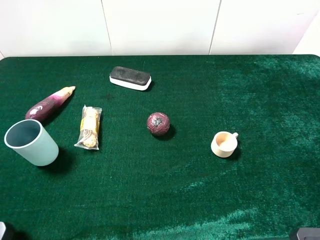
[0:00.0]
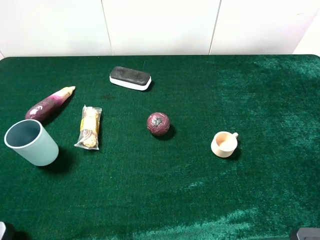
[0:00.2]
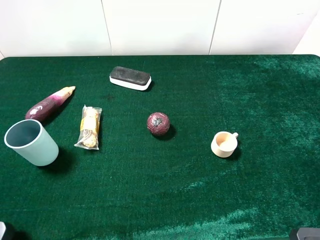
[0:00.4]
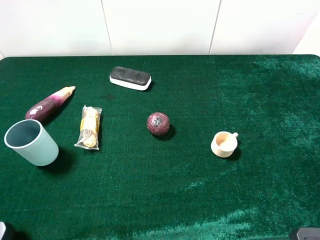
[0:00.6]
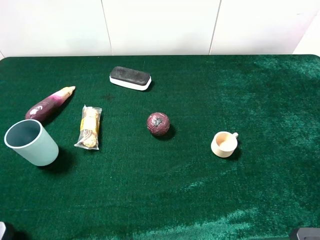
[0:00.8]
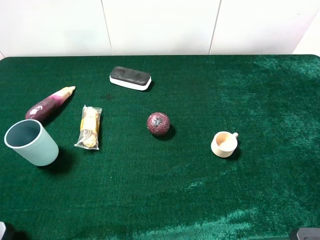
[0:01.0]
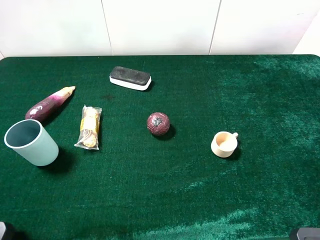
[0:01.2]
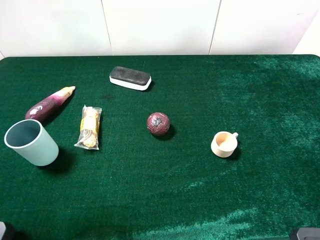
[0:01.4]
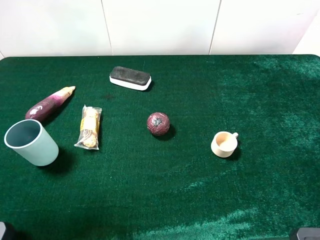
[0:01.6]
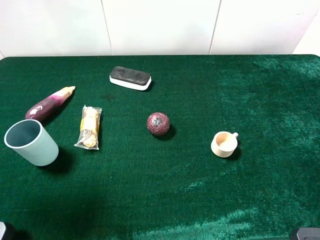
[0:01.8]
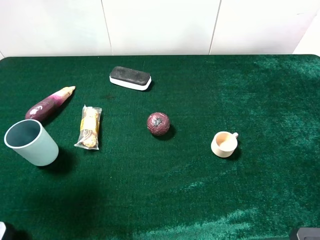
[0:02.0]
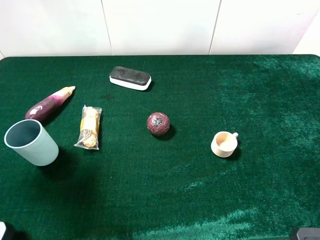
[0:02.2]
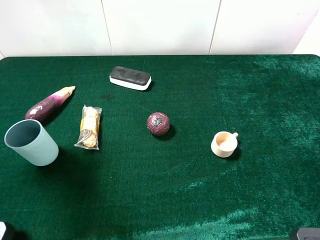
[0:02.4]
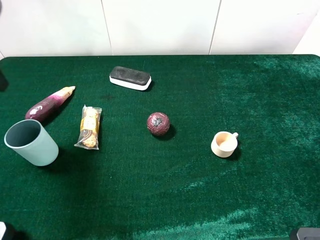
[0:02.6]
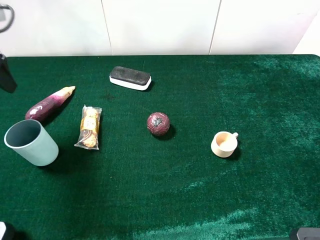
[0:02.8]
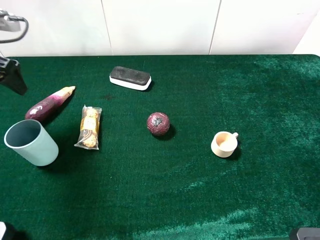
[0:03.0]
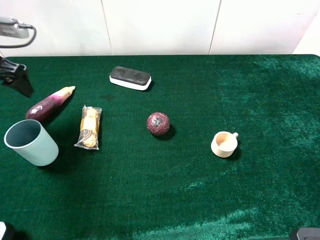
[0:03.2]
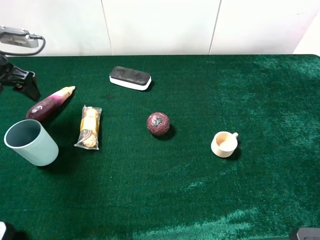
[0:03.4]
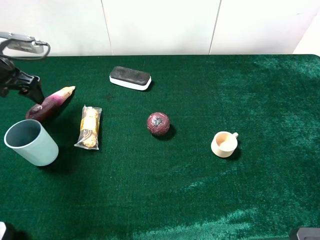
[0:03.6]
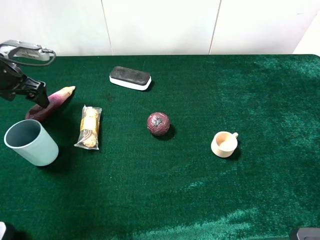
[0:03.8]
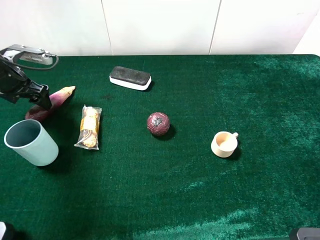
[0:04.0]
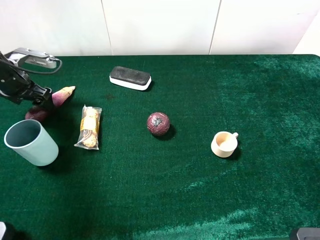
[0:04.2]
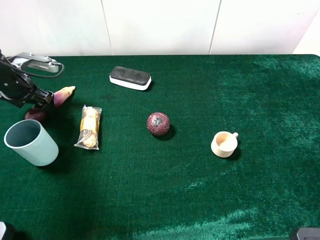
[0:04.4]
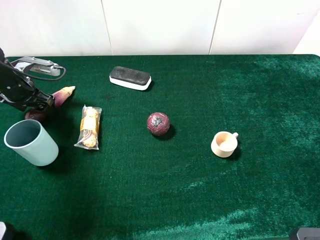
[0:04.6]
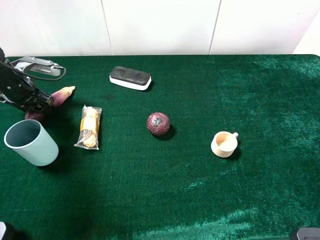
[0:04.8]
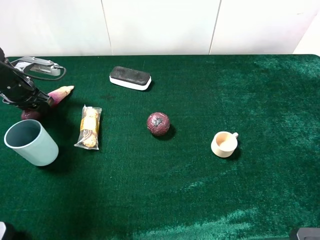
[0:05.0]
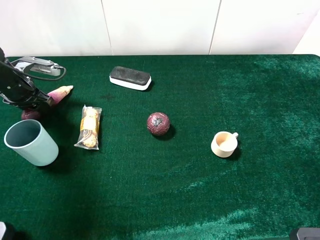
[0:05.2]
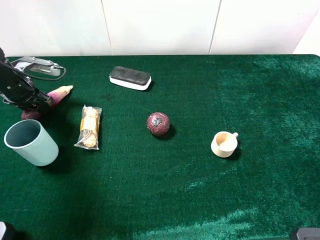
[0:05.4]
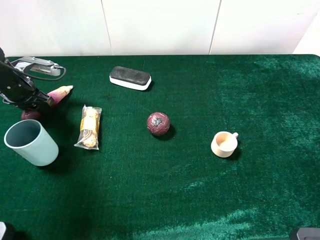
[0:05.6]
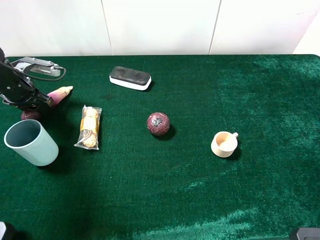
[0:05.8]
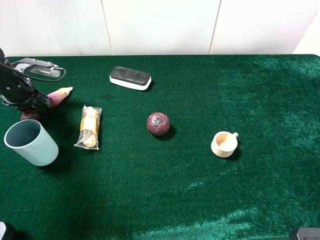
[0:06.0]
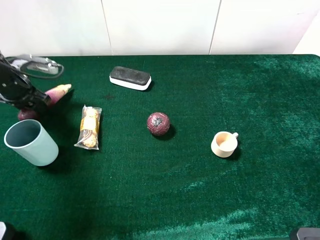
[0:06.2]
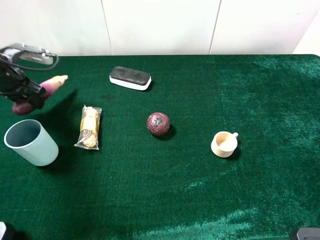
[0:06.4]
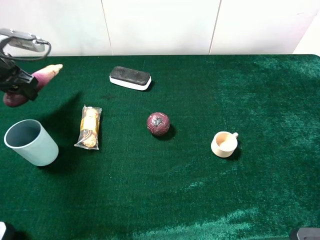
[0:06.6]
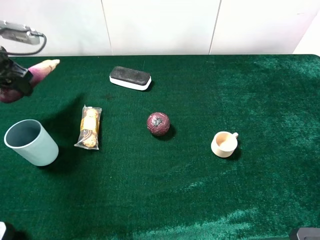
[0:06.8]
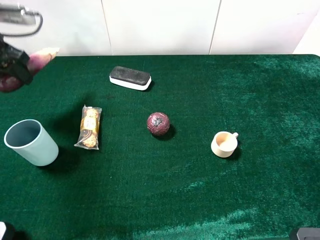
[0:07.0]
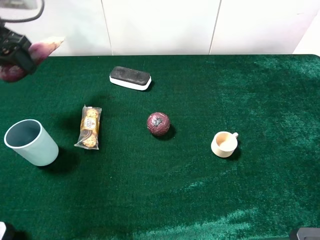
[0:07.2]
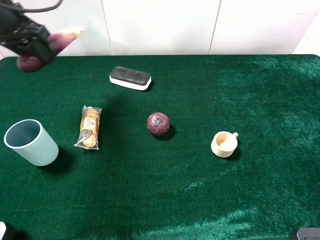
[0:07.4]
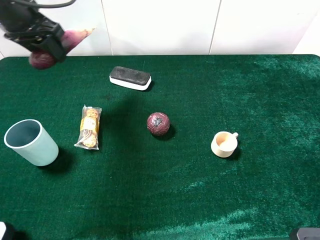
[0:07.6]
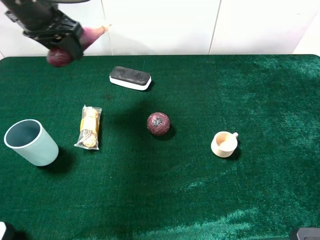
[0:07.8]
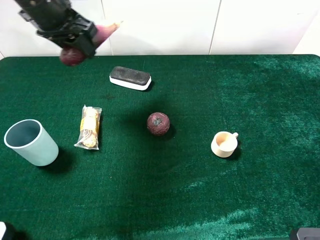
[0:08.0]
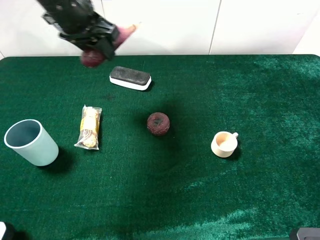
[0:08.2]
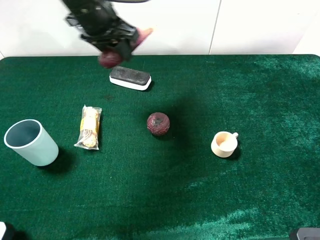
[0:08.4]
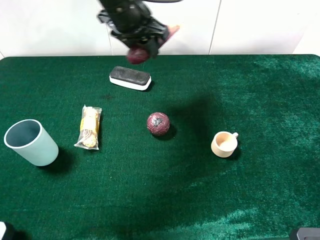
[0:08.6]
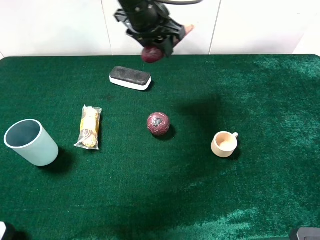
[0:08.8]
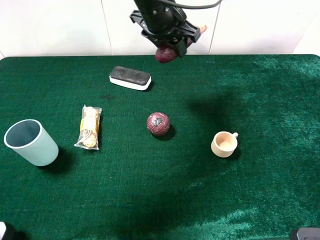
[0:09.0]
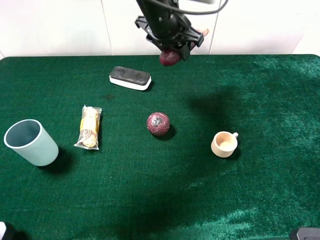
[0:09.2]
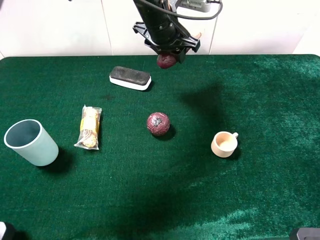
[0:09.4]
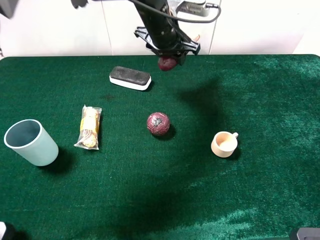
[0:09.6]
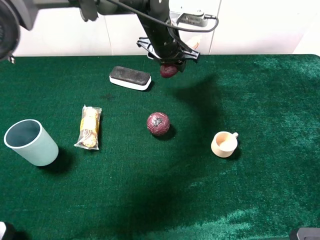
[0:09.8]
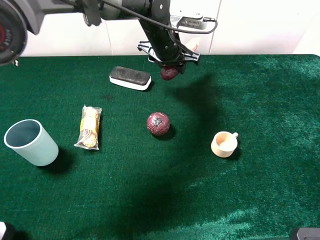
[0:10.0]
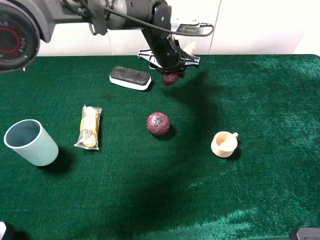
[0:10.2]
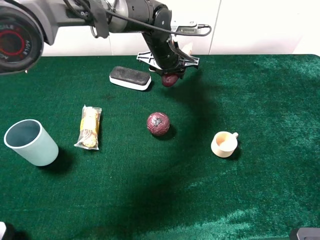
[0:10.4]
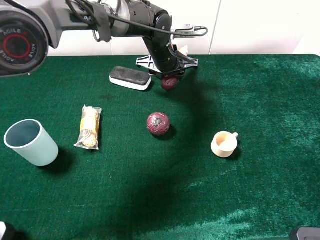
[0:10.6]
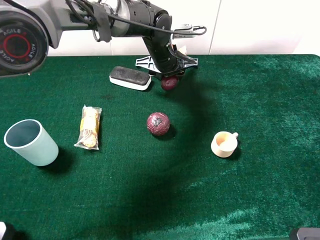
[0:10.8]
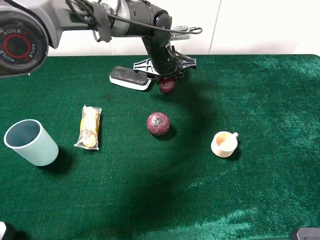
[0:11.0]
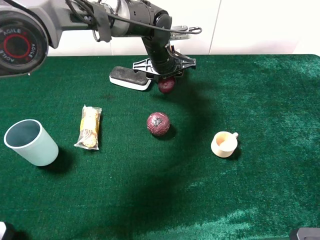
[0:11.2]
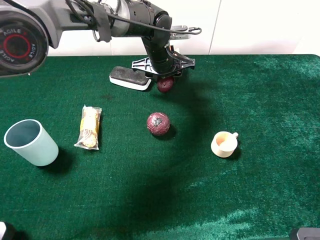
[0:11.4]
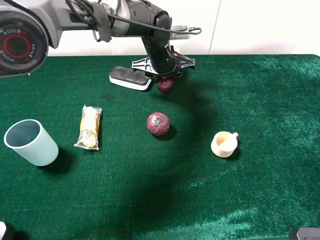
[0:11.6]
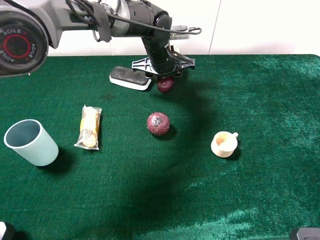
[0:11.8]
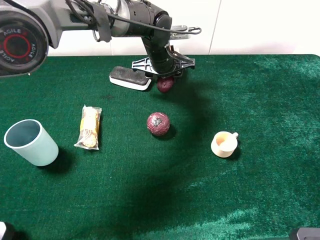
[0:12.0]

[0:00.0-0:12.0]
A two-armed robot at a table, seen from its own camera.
Task of the whole recording: the gripper move the object.
Step, 0.0 to 5.6 s: Grasp the eggplant with the left gripper.
0.0 to 1.6 s: The left gripper heads forward and upward, covering roughly 10 cm.
1.6 to 3.0 s: The left gripper heads forward and downward, covering approximately 20 cm.
3.0 to 4.4 s: The left gripper goes about 15 cm downward and forward.
4.4 to 6.0 s: The left gripper closes its fingers.
6.0 to 7.6 s: The left gripper heads upward and to the right, covering about 20 cm.
7.6 to 9.0 s: The left gripper is displaced to the right by approximately 25 cm.
9.0 to 10.4 s: The left gripper moves downward, approximately 10 cm.
10.4 to 12.0 s: There are only small adjustments of the grippers.

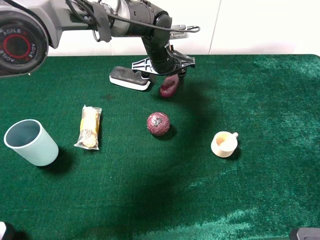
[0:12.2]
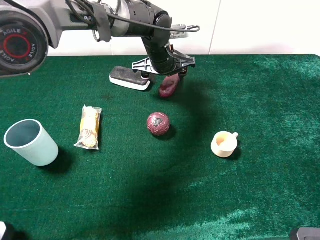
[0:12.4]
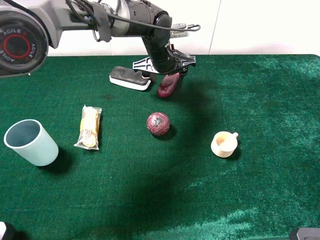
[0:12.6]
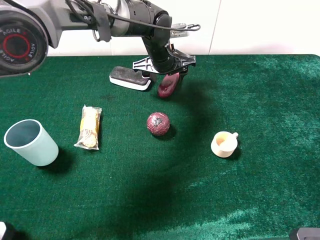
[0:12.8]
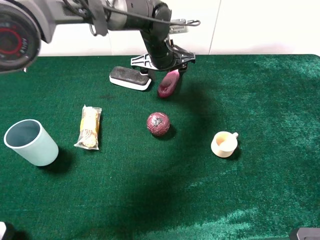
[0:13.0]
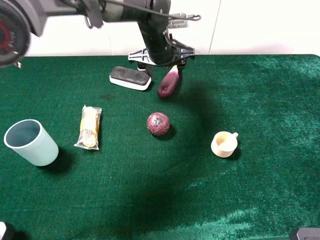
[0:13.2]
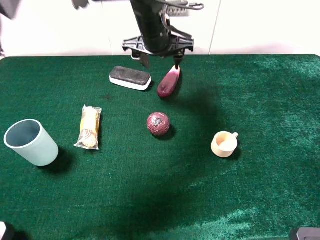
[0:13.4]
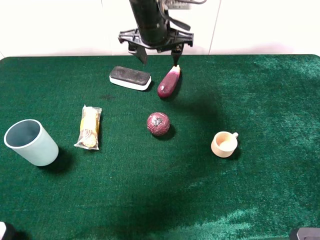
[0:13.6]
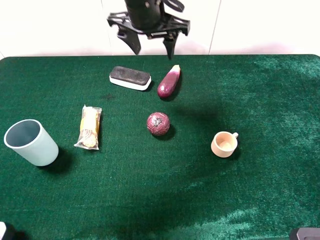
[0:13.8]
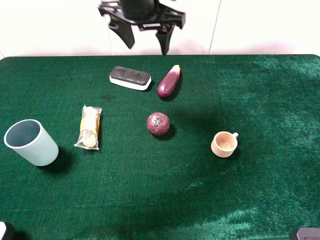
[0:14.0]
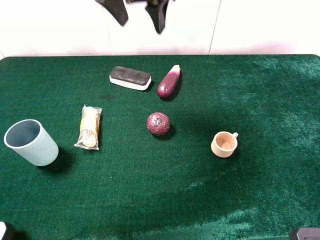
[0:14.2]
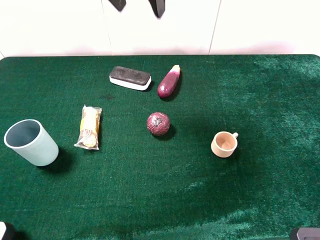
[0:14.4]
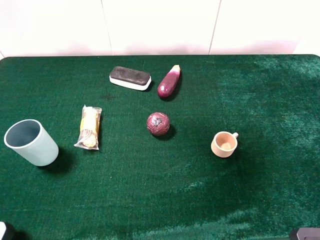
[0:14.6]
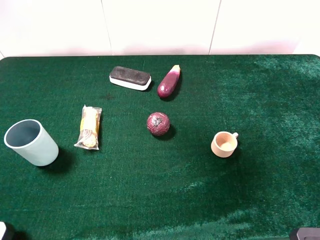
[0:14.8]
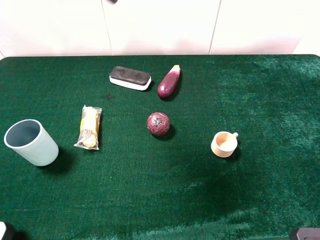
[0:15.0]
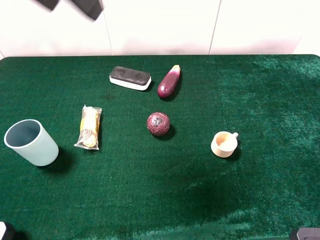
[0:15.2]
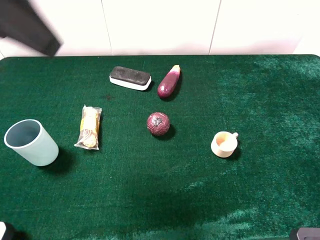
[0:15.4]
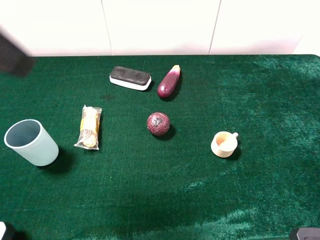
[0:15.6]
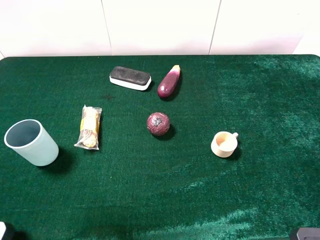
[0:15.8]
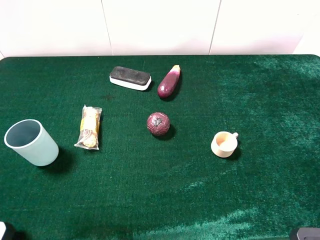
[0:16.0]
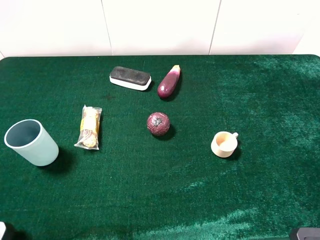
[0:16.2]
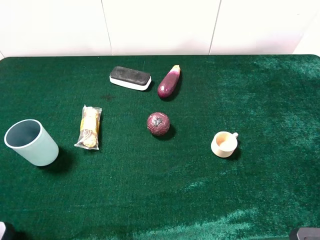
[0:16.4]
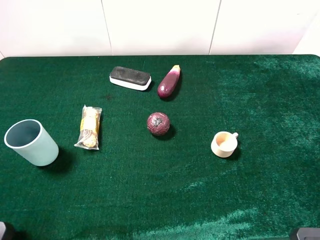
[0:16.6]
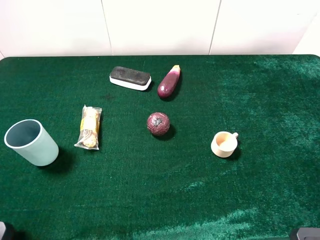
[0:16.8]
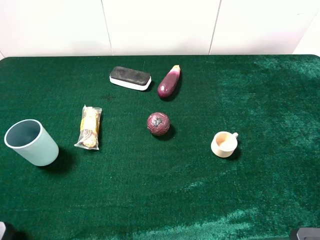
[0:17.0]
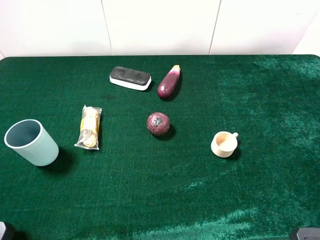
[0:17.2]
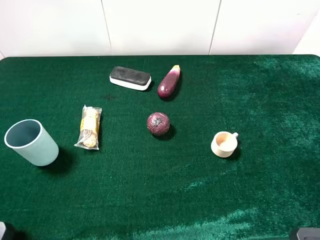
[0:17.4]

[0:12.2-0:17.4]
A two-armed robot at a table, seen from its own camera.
Task of the whole recording: the gripper move the object.
12.2 to 14.0 s: The left gripper goes about 15 cm upward.
14.0 to 15.6 s: The left gripper heads backward and to the left, covering some 30 cm, and opens.
15.6 to 17.4 s: The left gripper heads backward, downward and to the left, covering approximately 20 cm.

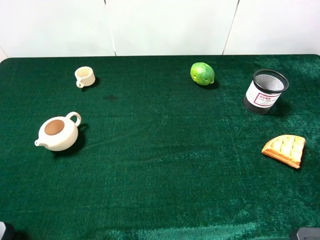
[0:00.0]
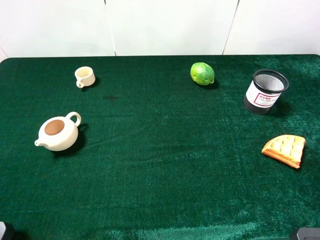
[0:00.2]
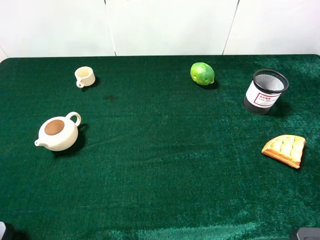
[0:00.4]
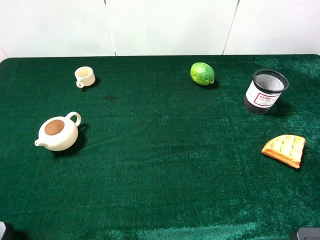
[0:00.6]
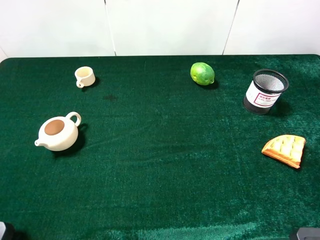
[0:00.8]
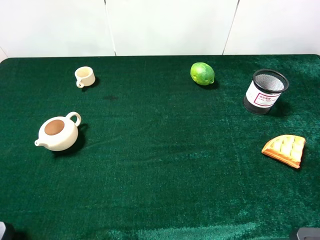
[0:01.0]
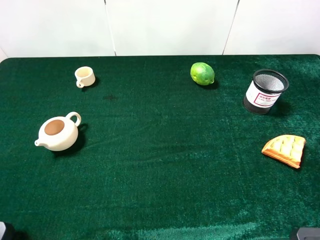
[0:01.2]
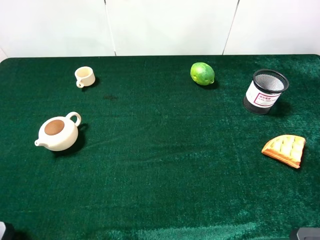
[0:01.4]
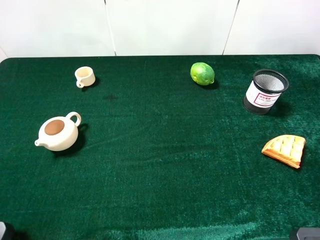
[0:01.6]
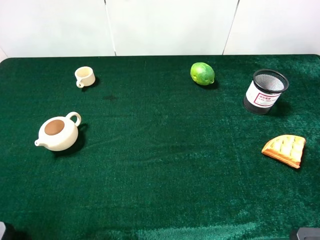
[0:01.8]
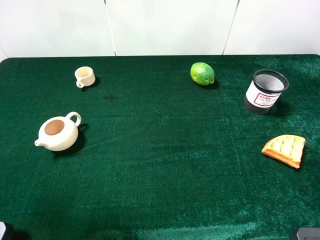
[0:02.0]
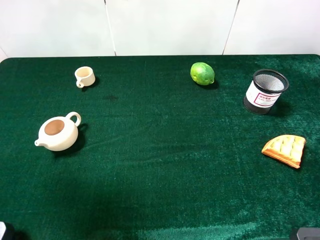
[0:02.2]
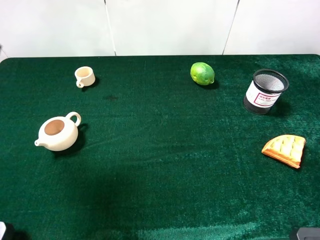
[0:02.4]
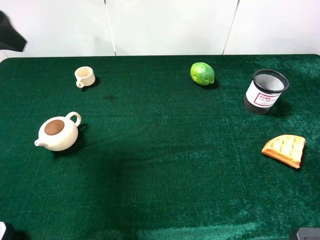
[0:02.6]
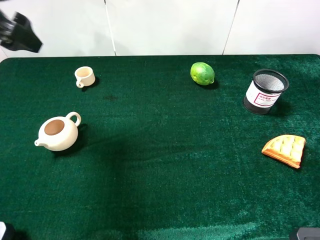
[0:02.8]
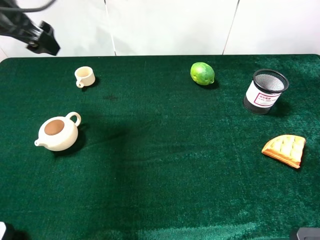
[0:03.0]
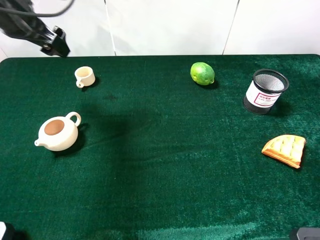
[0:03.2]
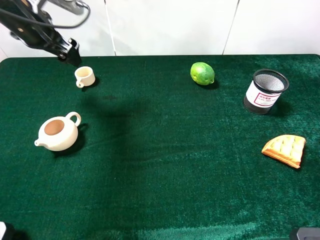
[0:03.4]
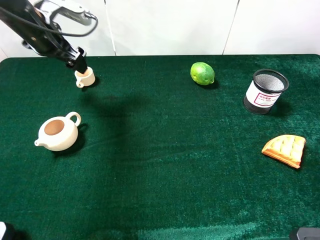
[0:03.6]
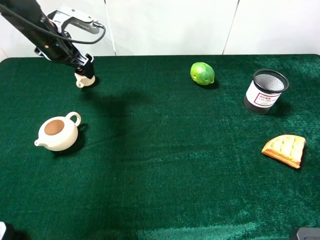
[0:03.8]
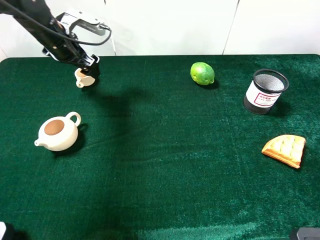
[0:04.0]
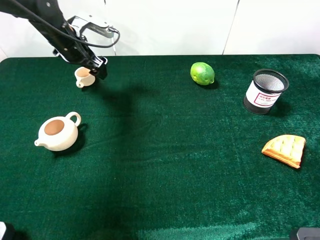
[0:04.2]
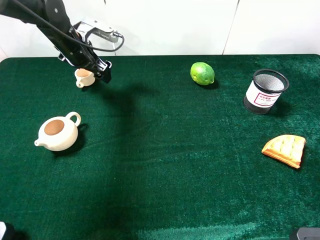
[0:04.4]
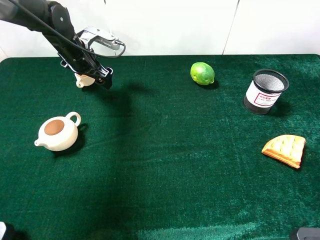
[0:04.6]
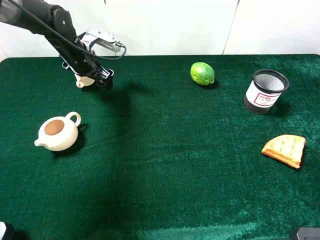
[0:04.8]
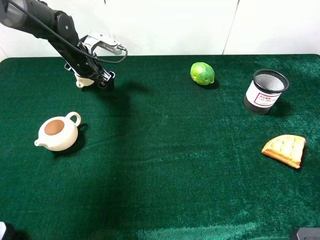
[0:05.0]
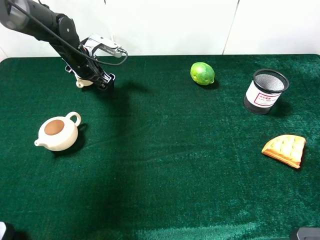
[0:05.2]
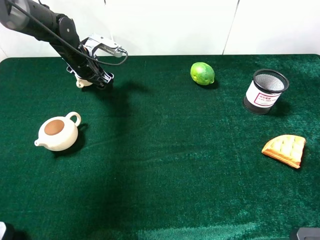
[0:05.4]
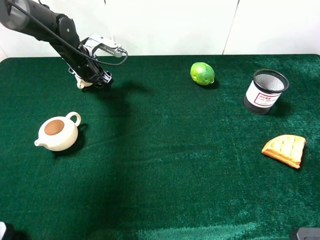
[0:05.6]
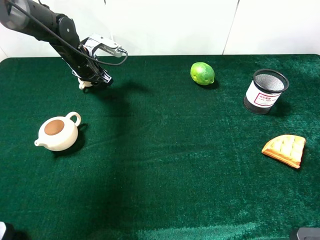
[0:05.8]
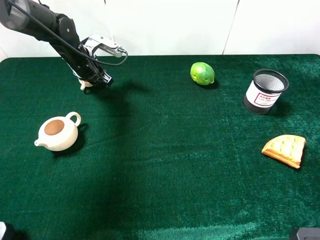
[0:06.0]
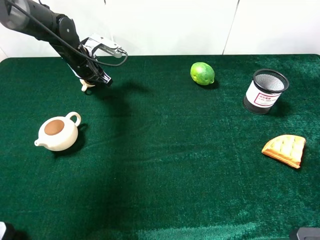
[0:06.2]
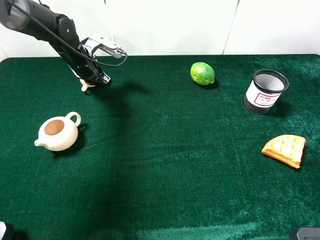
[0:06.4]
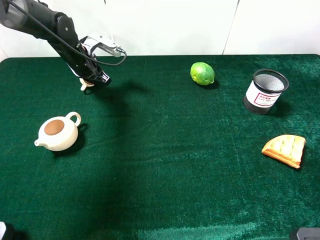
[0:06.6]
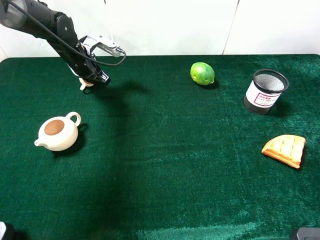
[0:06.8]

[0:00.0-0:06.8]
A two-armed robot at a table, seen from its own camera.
Task of the whole recording: the gripper move the object.
Step, 0.0 to 6.6 s: Grasp the teacup with the left gripper.
1.4 to 2.8 s: The left gripper is displaced forward by some 25 cm.
2.8 to 4.0 s: The left gripper shifts about 20 cm downward and forward.
4.0 to 5.4 s: The left gripper travels downward by roughly 5 cm.
5.4 to 6.8 s: The left gripper closes up.
